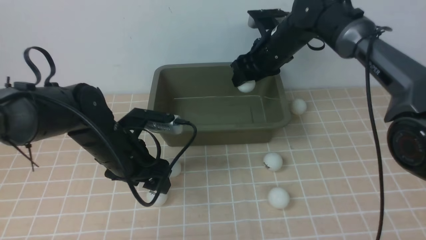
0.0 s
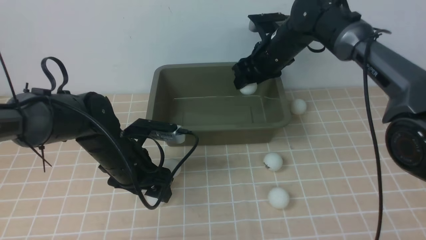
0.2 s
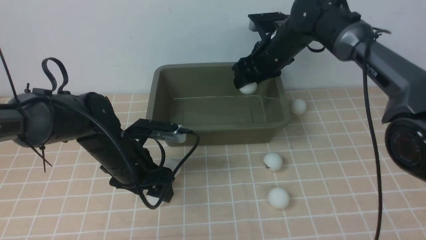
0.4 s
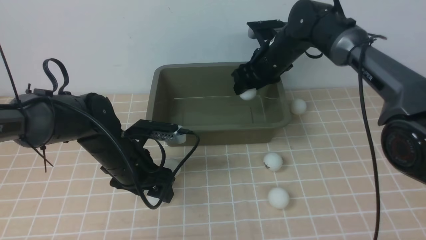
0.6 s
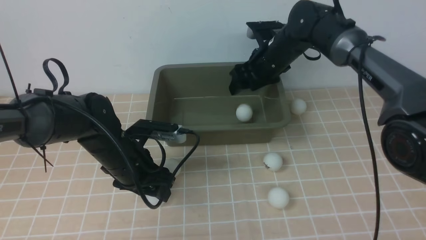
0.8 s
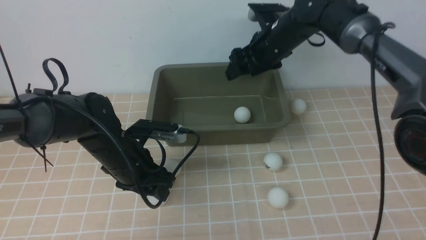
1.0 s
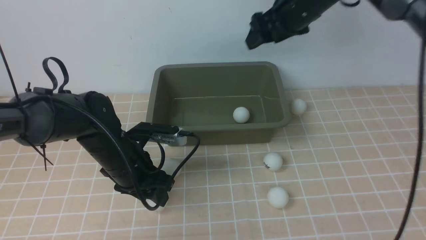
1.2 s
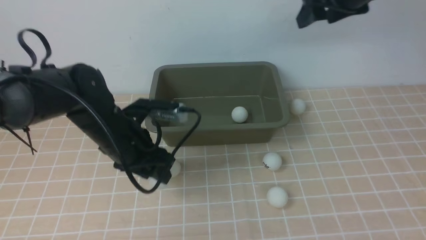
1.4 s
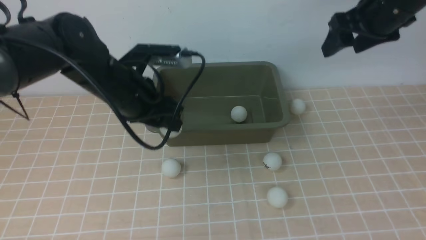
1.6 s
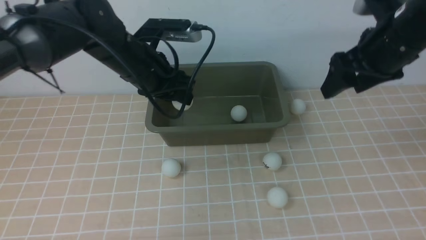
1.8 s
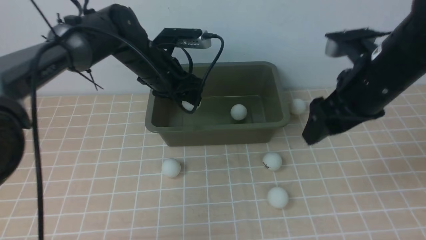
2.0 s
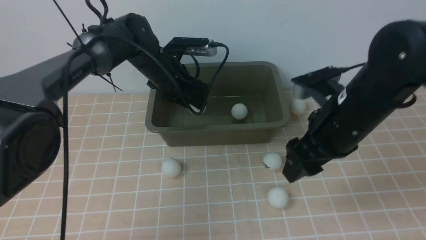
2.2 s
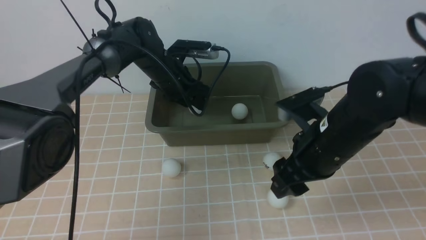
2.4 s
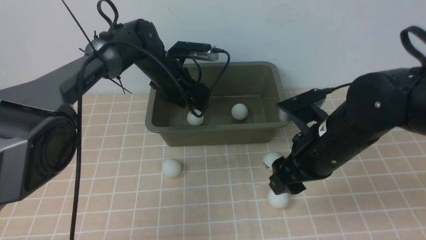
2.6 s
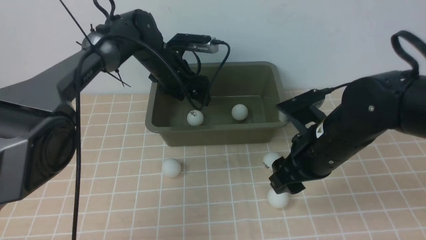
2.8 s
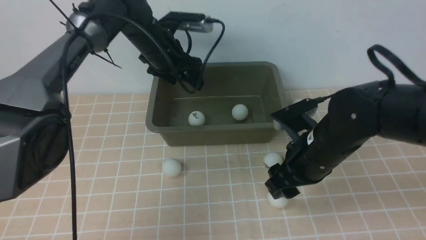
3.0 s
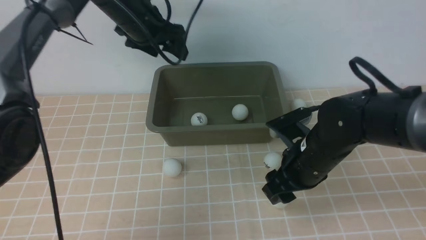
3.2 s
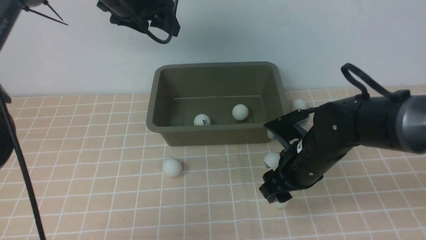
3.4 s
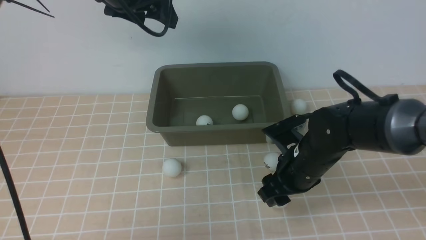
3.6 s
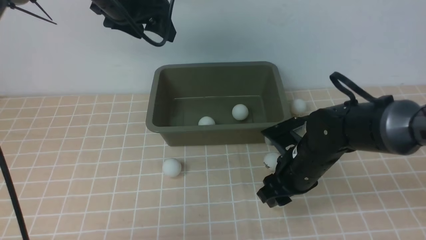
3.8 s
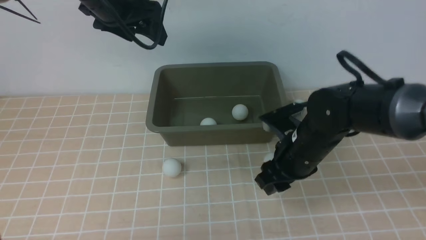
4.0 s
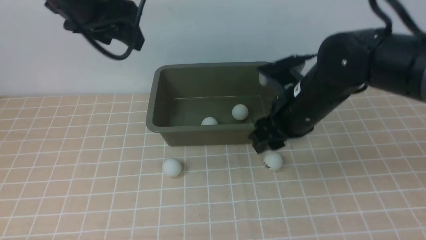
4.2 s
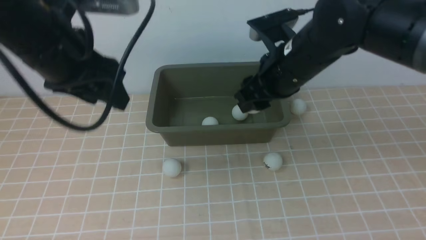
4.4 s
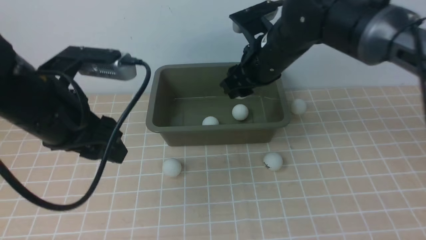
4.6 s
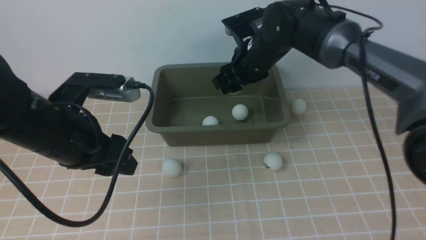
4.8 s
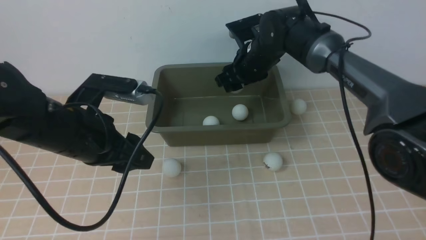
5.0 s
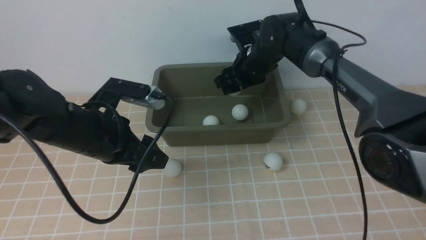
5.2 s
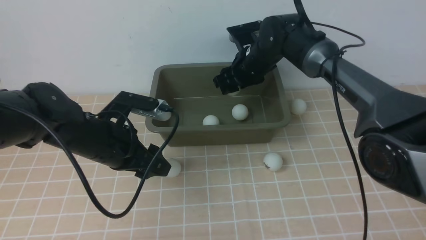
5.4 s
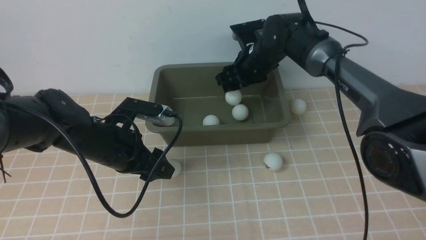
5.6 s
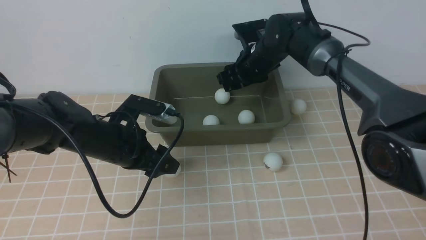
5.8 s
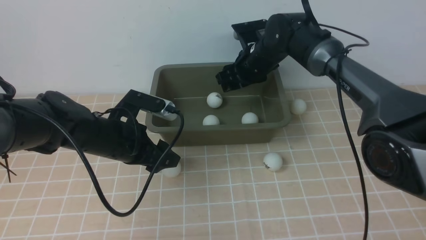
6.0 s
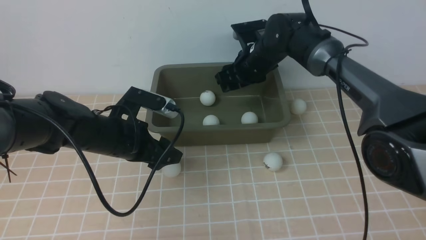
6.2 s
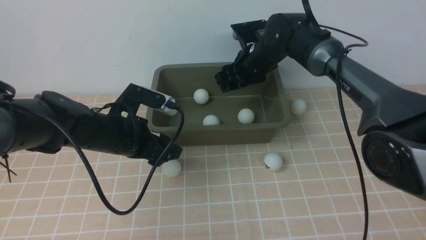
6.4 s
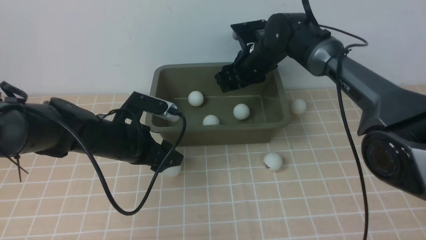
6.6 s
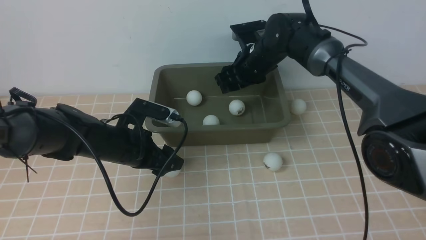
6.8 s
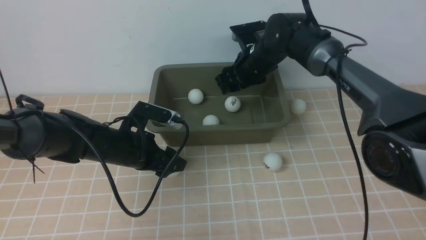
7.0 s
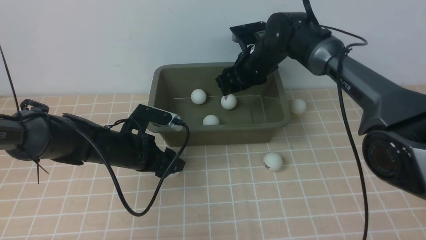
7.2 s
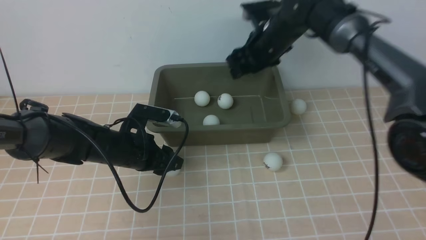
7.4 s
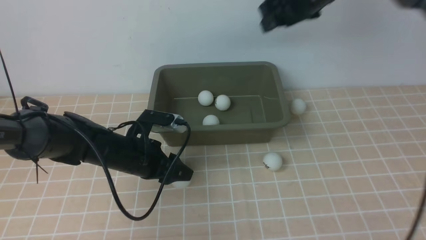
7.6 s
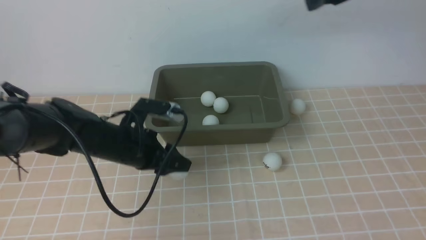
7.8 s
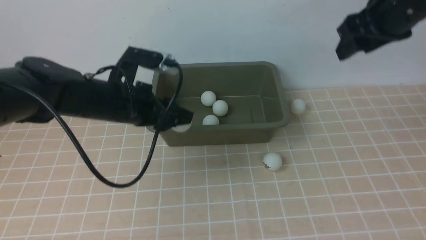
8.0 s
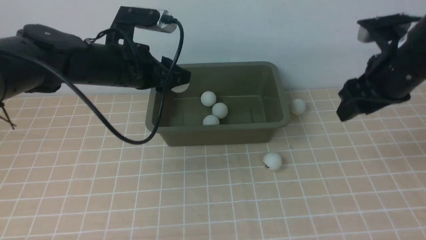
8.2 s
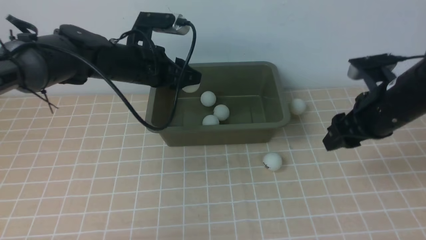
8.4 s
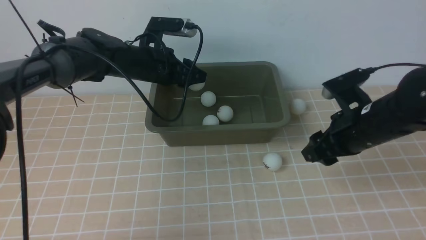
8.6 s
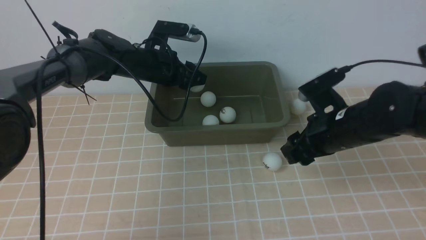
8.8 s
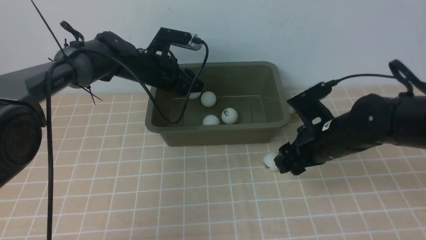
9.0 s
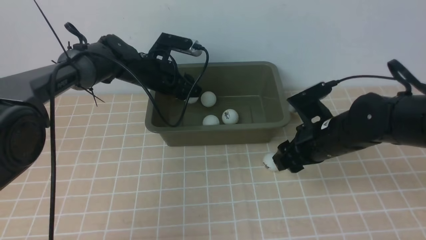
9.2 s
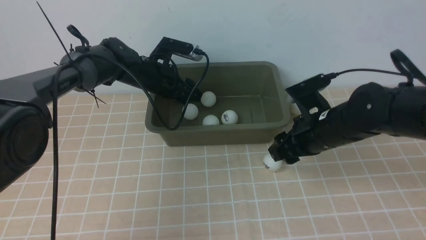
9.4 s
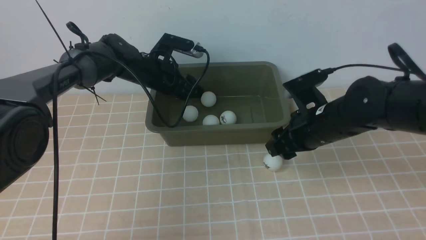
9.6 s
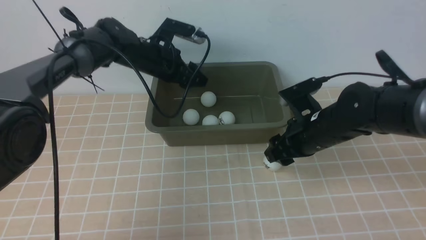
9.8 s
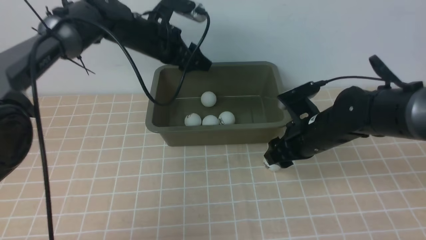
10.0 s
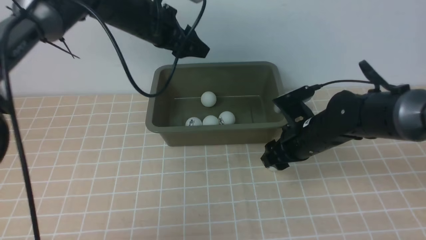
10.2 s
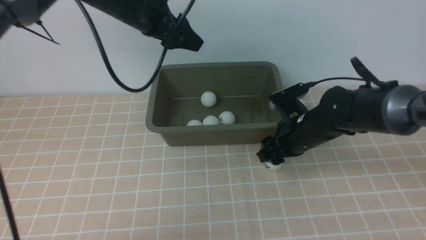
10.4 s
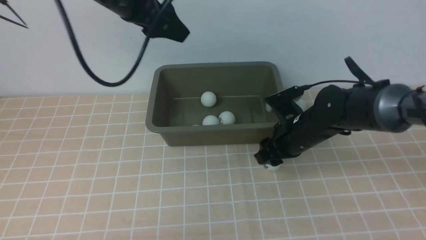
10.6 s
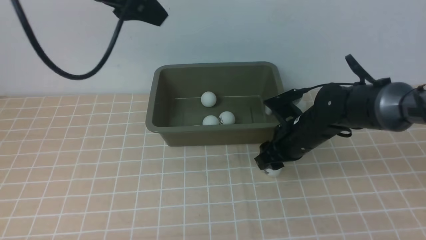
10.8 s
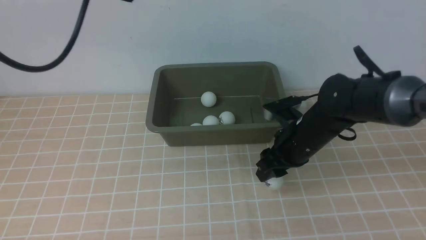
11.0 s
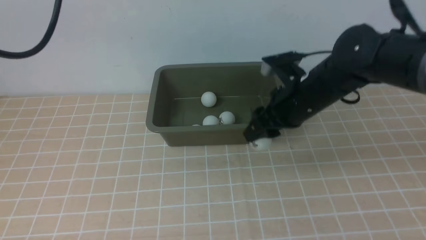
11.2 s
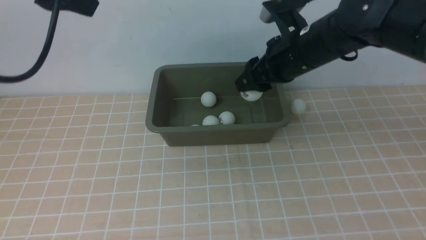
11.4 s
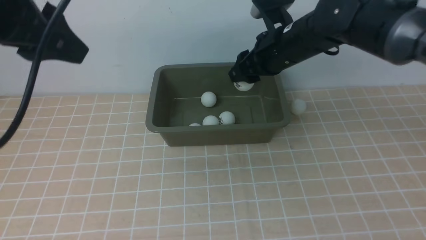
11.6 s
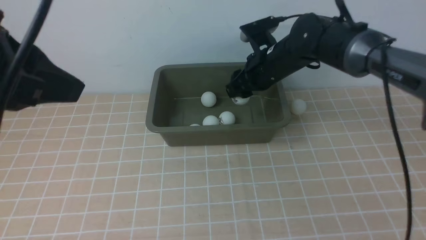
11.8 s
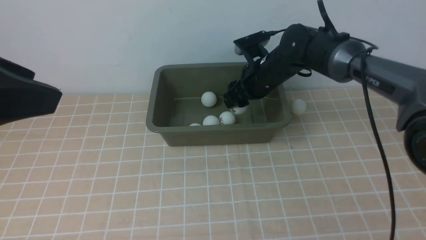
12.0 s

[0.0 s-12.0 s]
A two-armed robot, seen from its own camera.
Step, 1.2 to 1.6 s: use the left arm to clamp the table tennis ball closest to it.
Step, 1.8 to 2.4 s: use the left arm to put the table tennis ball into the box.
Step, 2.8 to 4.0 s: use the right arm to clamp the table tennis ball closest to it.
Step, 4.4 to 5.8 s: use the right arm to put the table tennis ball into the box.
Step, 6.0 to 7.8 s: use the left arm to clamp the table tennis ball closest to it.
Step, 8.0 to 9.6 s: use the left arm to put the table tennis ball into the box.
Step, 9.8 to 11.0 s: use the right arm to clamp the table tennis ball closest to it.
0.0 to 1.6 s: The left gripper moves upward, about 10 cm, and closes. Meanwhile the right gripper moves to the right, upward and backward, roughly 20 cm.
1.6 to 3.0 s: The left gripper moves forward, approximately 15 cm, and opens. Meanwhile the right gripper shifts approximately 20 cm downward, backward and to the left.
3.0 to 4.4 s: The right gripper goes approximately 10 cm upward and forward. The left gripper goes roughly 20 cm backward and upward.
4.4 to 6.0 s: The left gripper shifts about 20 cm downward. The right gripper heads forward and downward, covering some 15 cm.
6.0 to 7.6 s: The right gripper goes some 15 cm upward and to the right.
7.6 to 9.0 s: The right gripper moves downward and backward, roughly 20 cm, while the left gripper travels forward by approximately 15 cm.
9.0 to 10.4 s: The left gripper travels upward by roughly 15 cm, while the right gripper changes place by about 5 cm.
10.4 to 12.0 s: The right gripper is displaced forward, upward and to the left by approximately 15 cm. The left gripper goes roughly 30 cm backward.

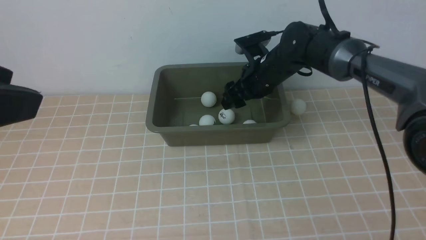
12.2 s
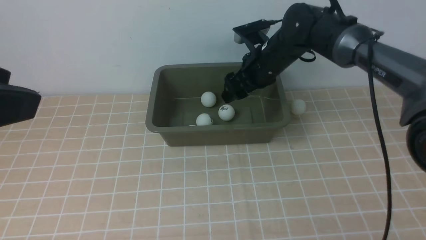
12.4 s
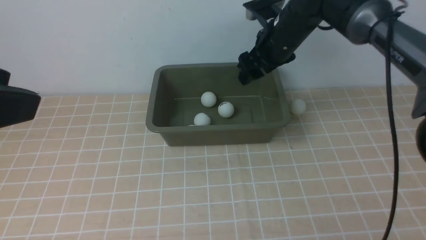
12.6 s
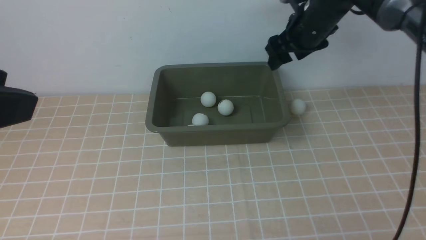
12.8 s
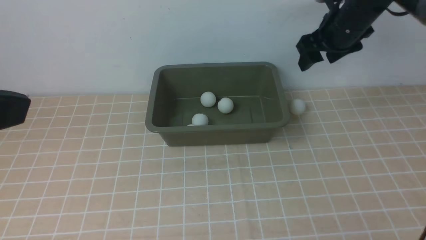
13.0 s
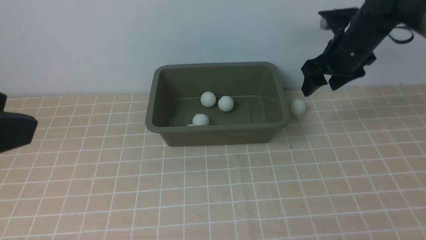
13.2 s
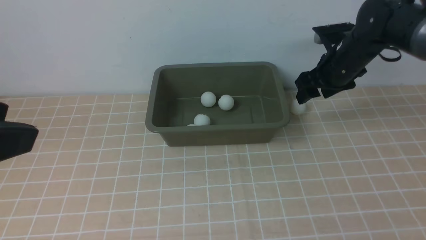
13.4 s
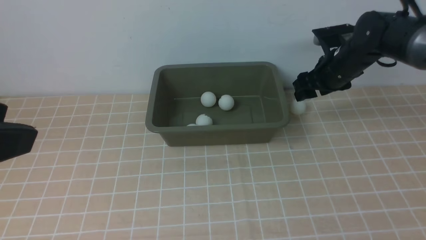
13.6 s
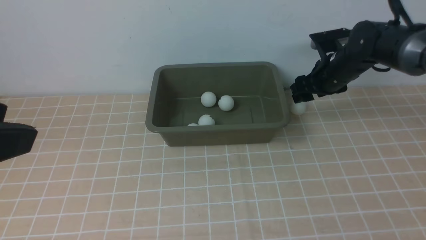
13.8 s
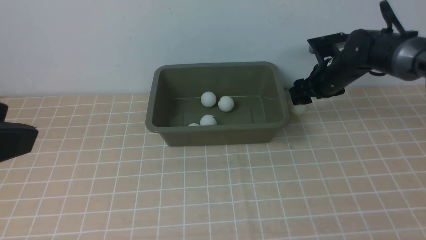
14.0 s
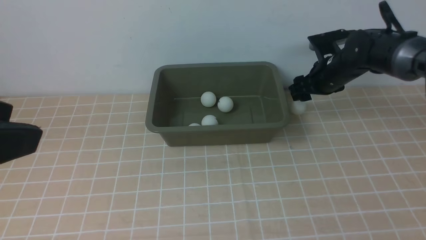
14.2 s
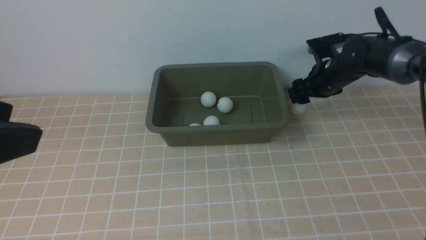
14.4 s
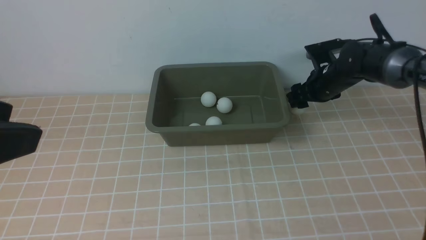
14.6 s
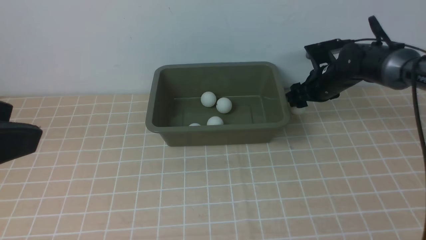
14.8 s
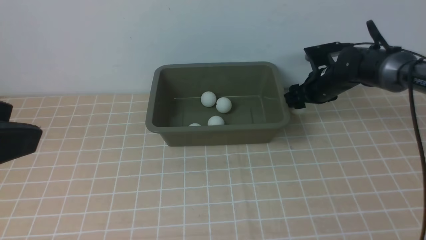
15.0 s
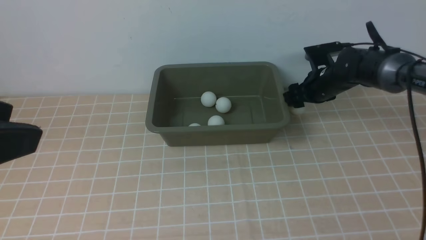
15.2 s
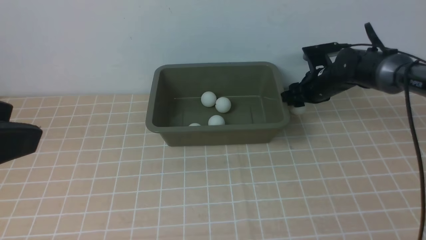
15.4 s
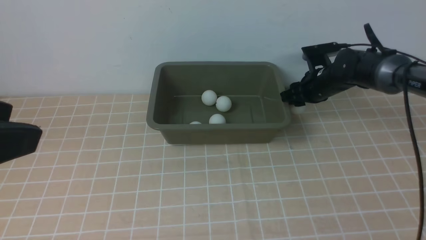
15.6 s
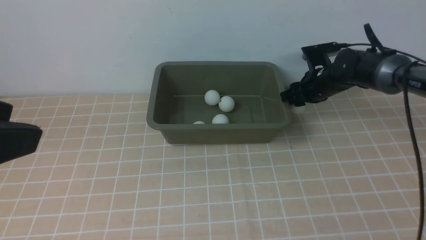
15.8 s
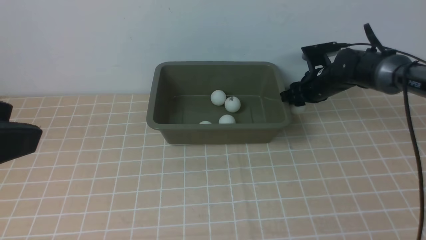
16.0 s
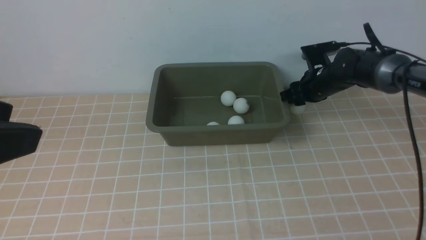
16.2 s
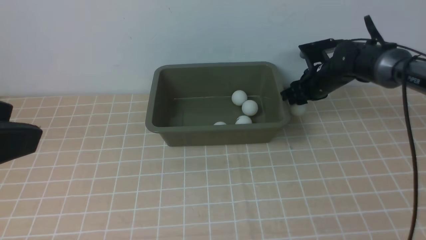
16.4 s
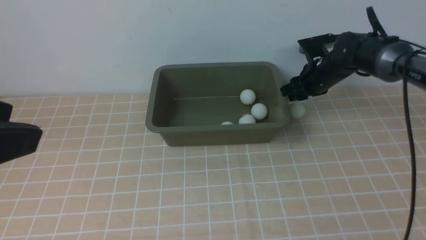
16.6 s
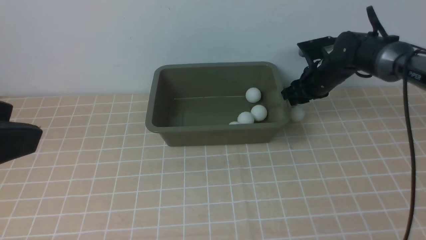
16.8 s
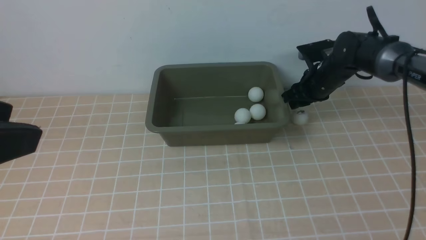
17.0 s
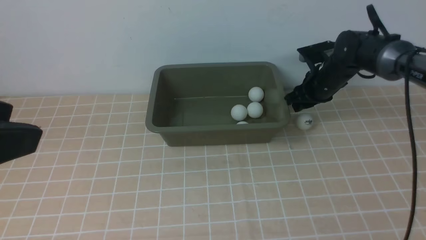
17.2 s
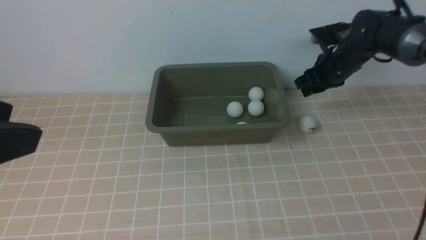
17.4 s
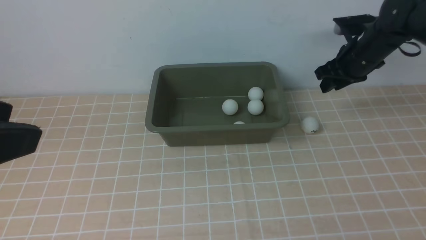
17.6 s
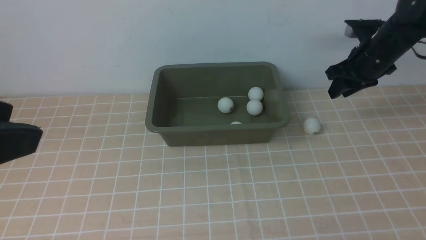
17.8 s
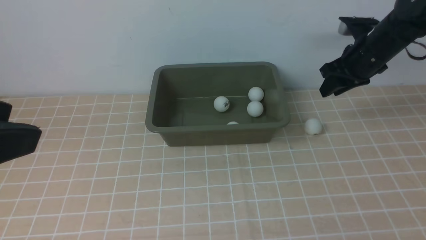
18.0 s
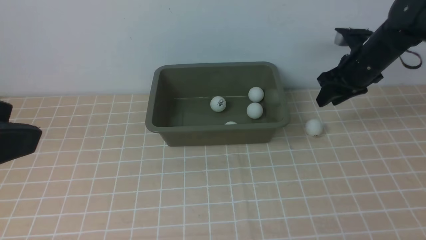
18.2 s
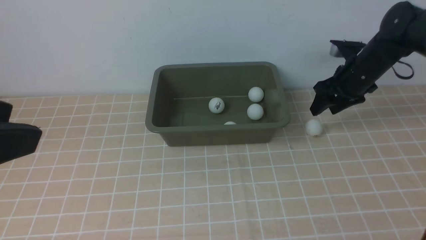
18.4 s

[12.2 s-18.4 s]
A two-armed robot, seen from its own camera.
12.2 to 13.8 s: The right gripper moves to the right, approximately 15 cm.
13.8 to 15.4 s: The right gripper heads downward, covering approximately 5 cm.
15.4 to 16.8 s: The grippers move only a little.
16.8 to 18.4 s: The right gripper goes about 5 cm to the right.
